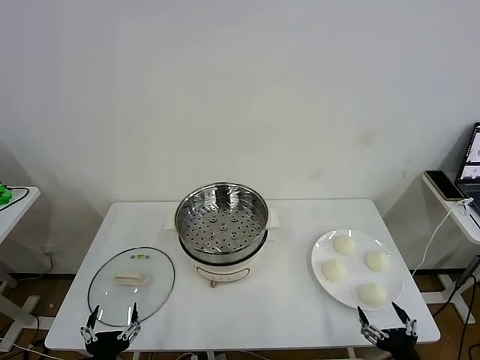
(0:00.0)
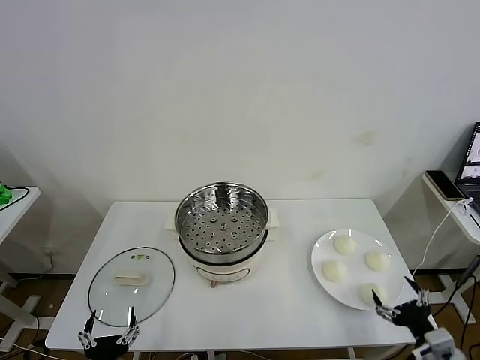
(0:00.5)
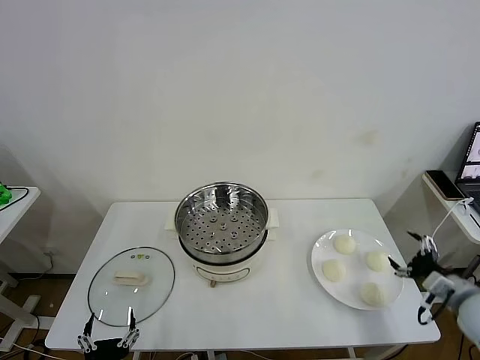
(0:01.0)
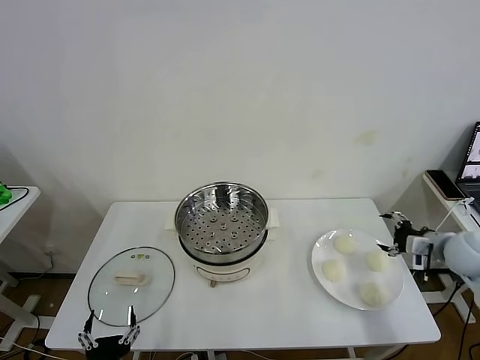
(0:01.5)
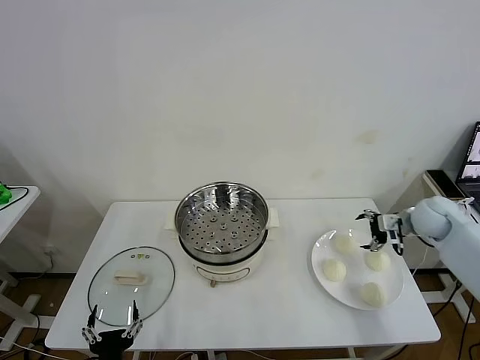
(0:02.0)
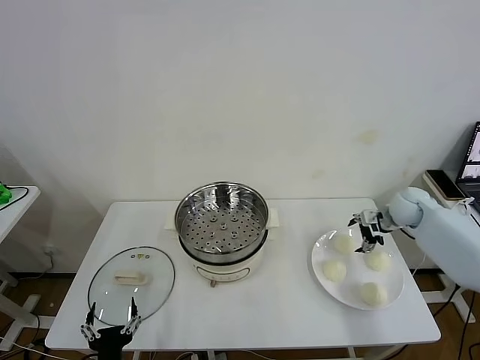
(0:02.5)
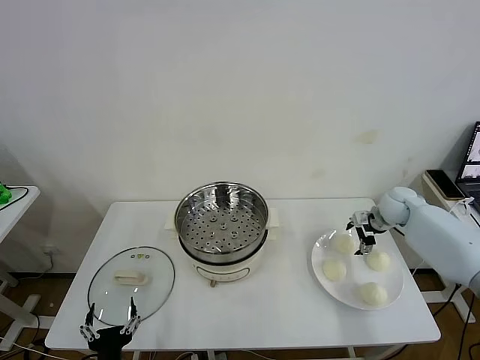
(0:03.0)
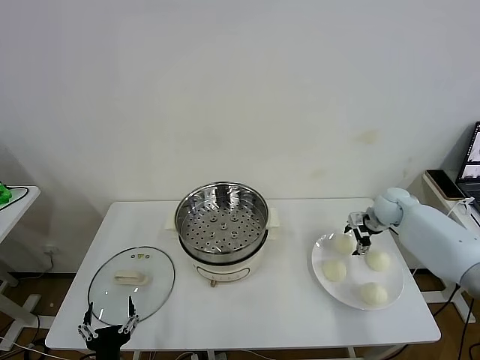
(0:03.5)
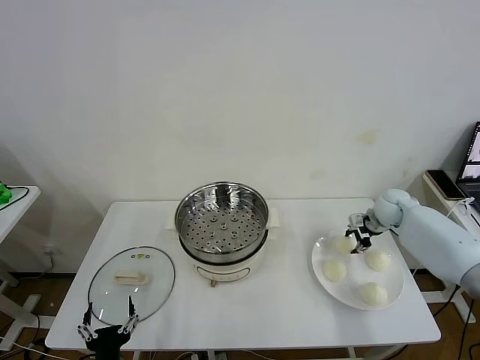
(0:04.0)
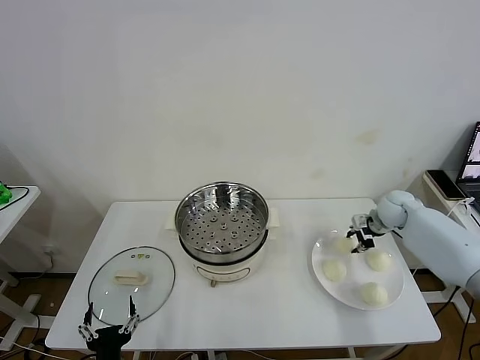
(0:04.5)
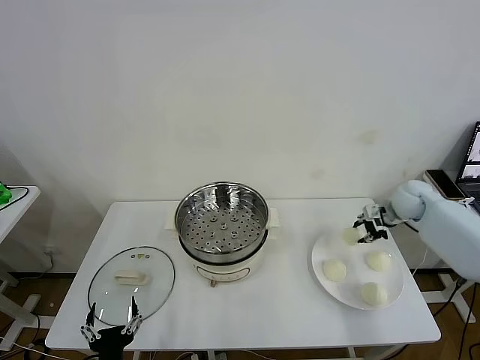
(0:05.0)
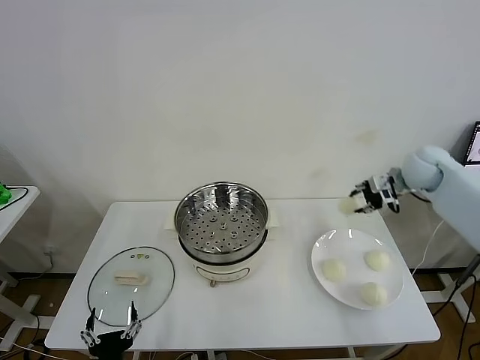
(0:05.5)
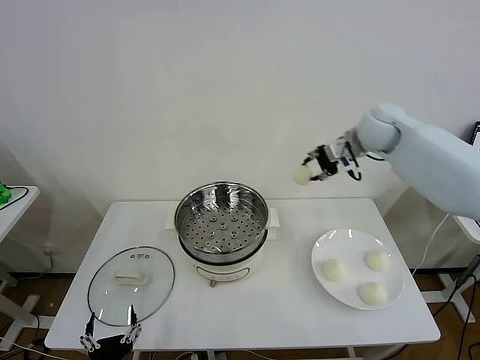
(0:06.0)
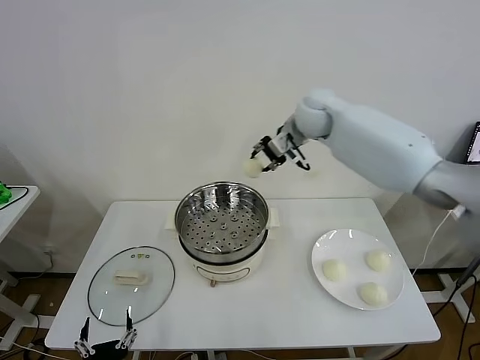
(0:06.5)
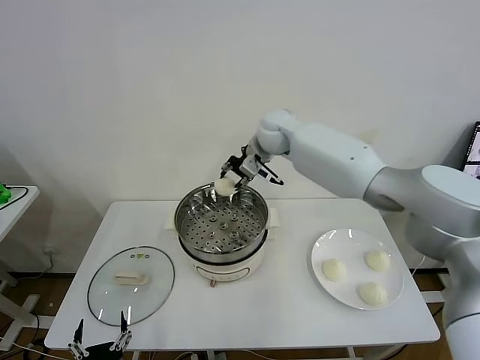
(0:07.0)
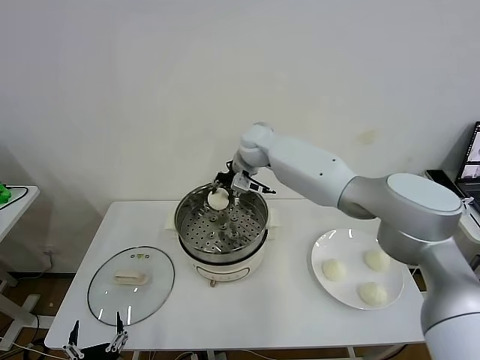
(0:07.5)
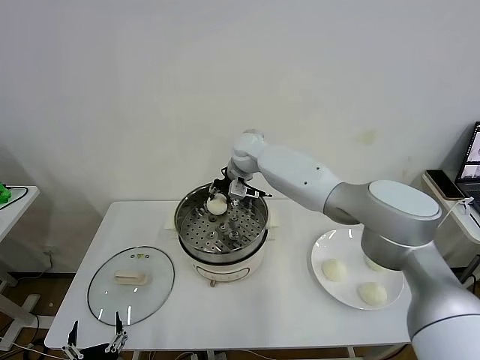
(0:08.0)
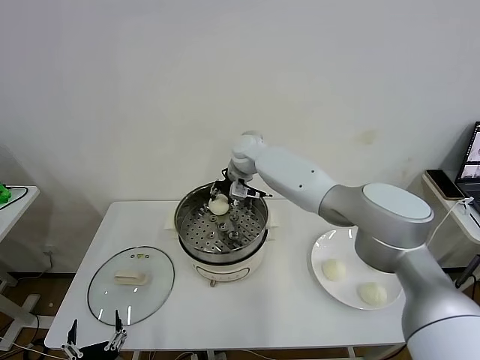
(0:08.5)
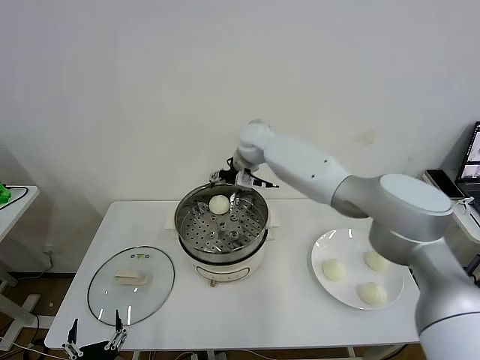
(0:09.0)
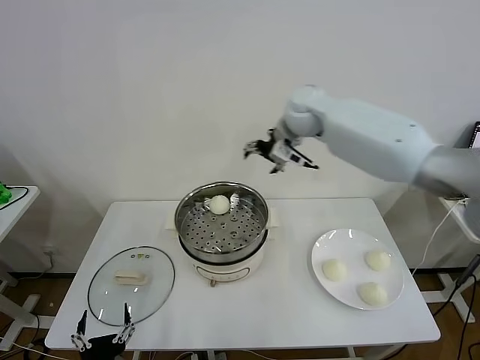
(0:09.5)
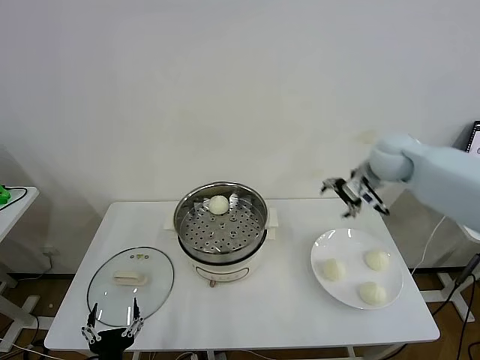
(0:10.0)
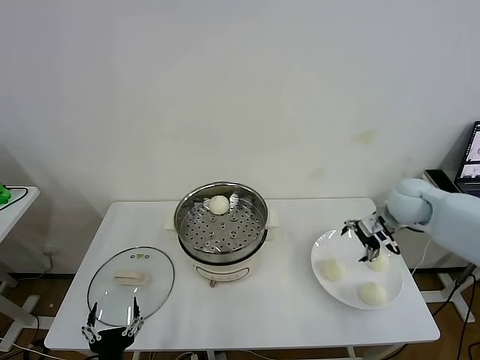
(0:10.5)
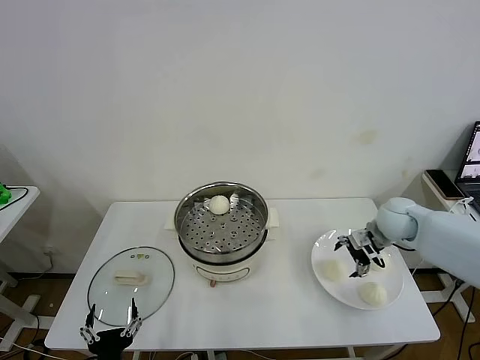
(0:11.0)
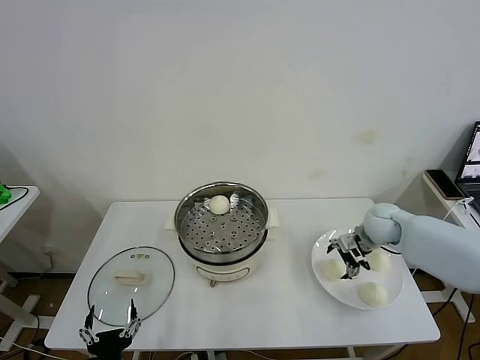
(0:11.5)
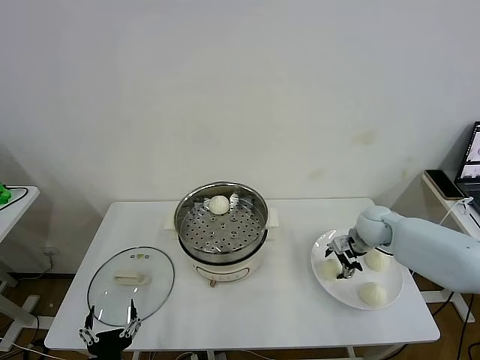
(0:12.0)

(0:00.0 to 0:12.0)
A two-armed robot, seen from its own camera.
Task of the whole recording: take steamed baozi put them in steamer then cover it.
Step, 0:00.0 - 0:04.0: Grasp the baozi with right gripper.
Step, 0:05.0 - 0:08.5: Place the baozi on the steamer with right gripper.
0:02.0 - 0:04.0: The right gripper goes roughly 5 cm forward, and closes.
0:04.0 - 0:06.0: The right gripper moves upward and to the left, some 30 cm.
0:06.0 - 0:08.0: The right gripper is displaced to the left and downward by some 25 cm.
0:08.0 - 0:10.0: The right gripper is displaced to the right by roughly 35 cm, and opens.
0:10.0 - 0:12.0: The right gripper shifts roughly 15 cm downward, and closes its fingers.

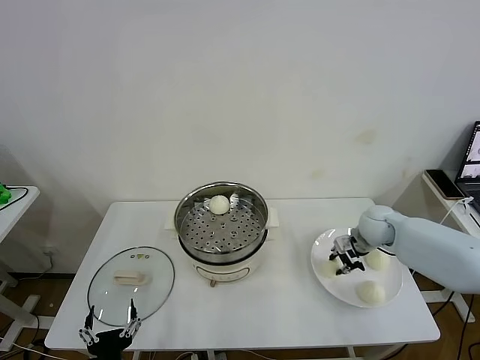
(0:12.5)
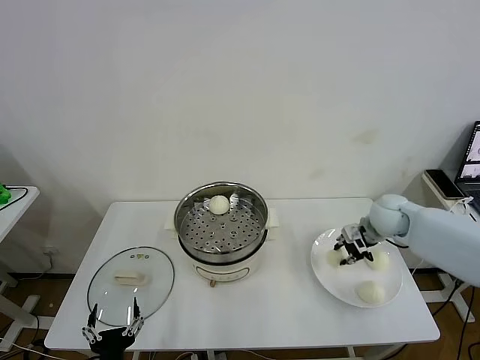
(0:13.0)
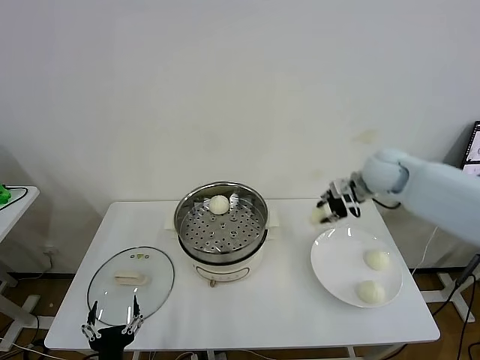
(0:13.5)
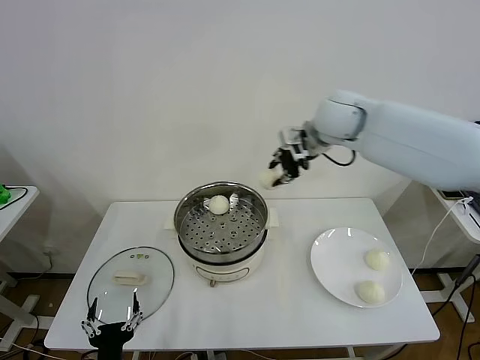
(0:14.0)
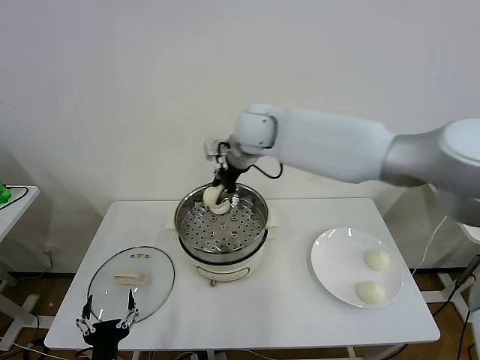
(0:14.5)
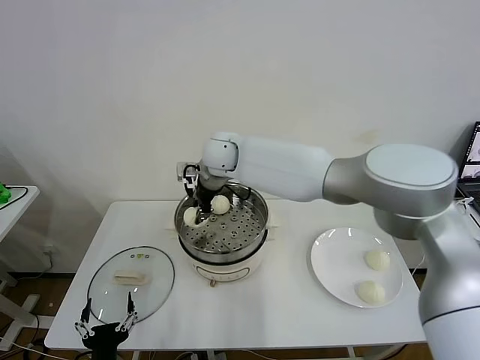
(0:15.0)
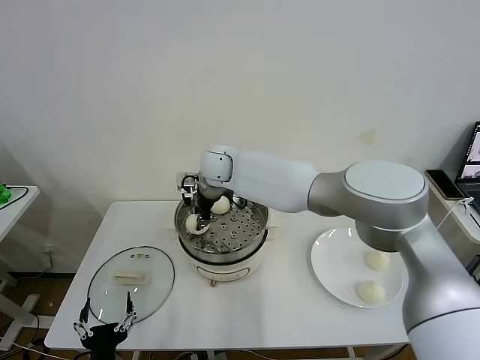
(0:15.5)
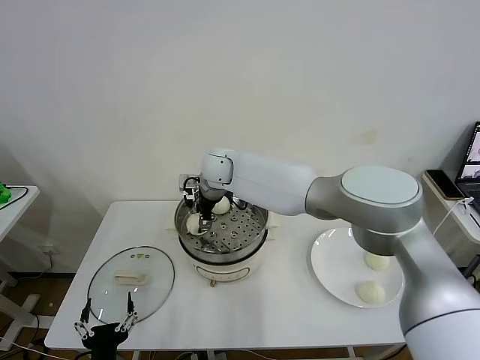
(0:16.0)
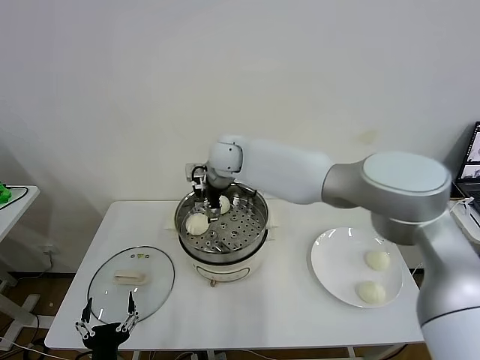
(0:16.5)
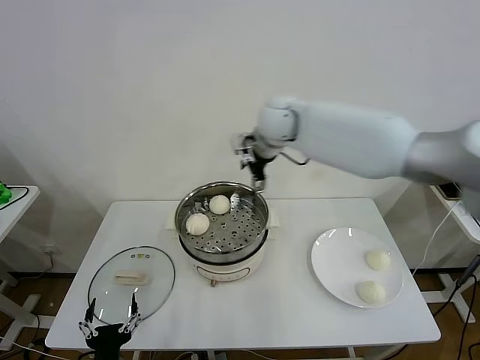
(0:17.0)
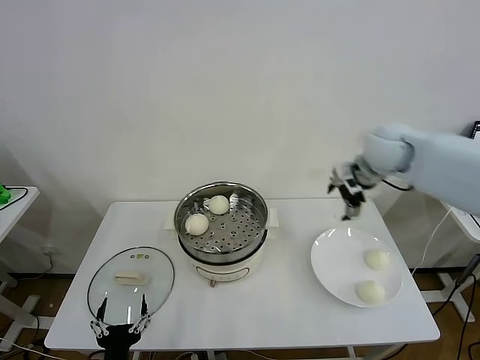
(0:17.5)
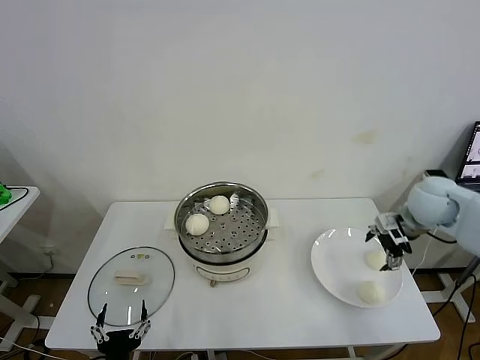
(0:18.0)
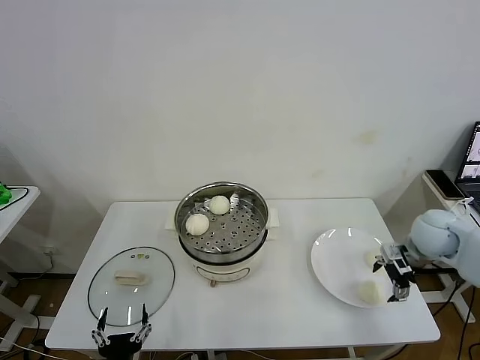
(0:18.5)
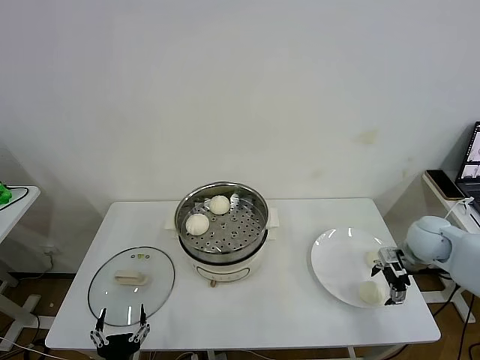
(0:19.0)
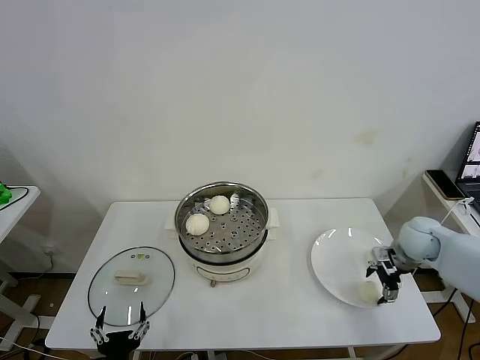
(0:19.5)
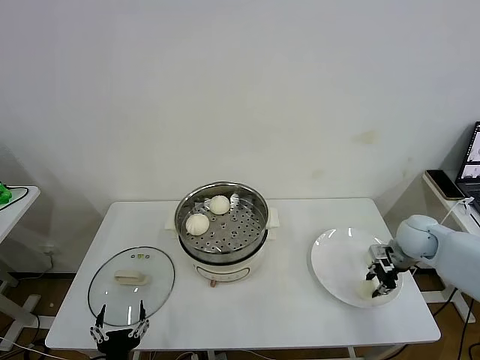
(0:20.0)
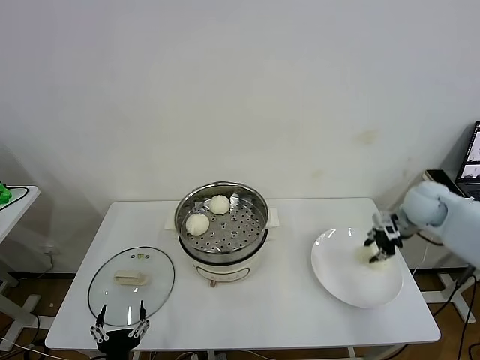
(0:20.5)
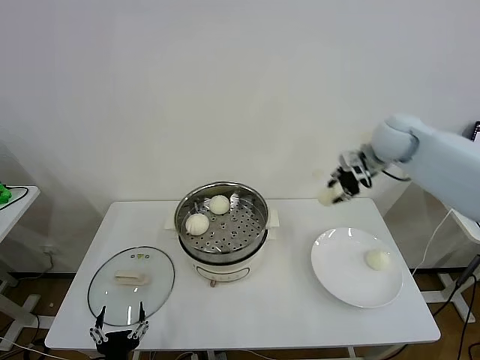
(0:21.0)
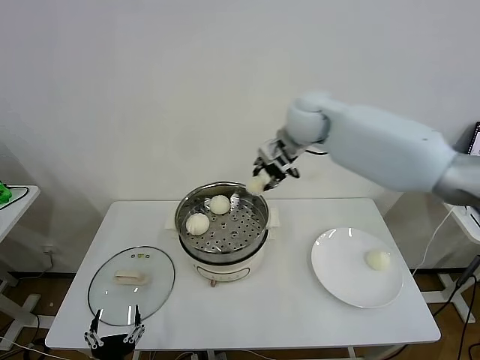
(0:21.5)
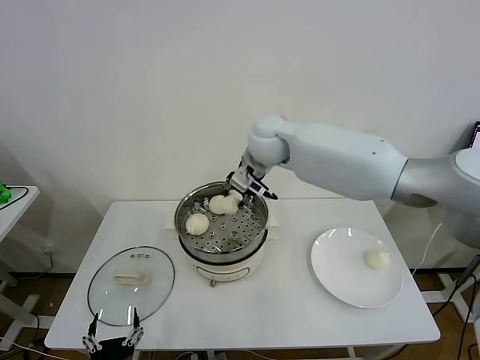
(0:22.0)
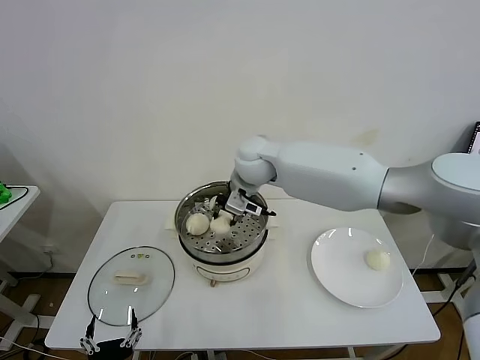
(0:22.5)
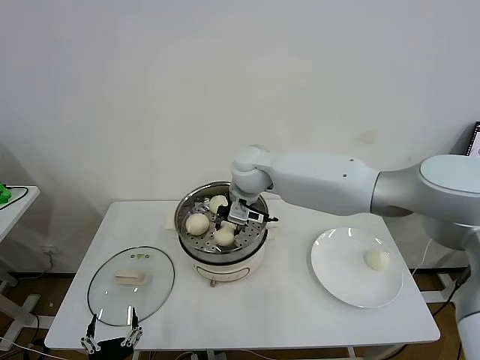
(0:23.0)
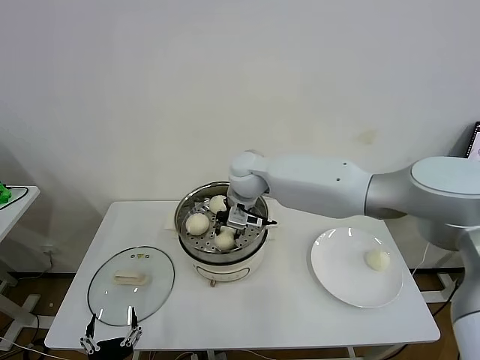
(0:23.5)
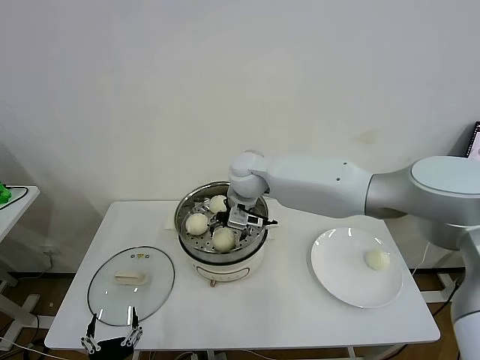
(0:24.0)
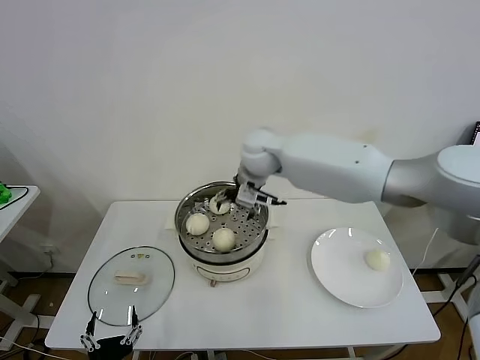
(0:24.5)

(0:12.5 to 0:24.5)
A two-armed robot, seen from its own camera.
Task of the whole recording: take steamed baozi put them in steamer then cover it.
Step, 0:13.0 - 0:16.0: Place the baozi on the steamer with right gripper.
Step, 0:16.5 - 0:20.0: Grasp the baozi with right gripper.
Step, 0:20.5 - 0:24.0: Place the baozi on the steamer with right gripper.
0:12.5 - 0:14.5: The right gripper shifts roughly 40 cm to the left and upward.
0:14.5 - 0:16.5: The right gripper opens its fingers.
0:16.5 - 0:18.5: The right gripper heads to the right, covering roughly 40 cm.
0:18.5 - 0:20.5: The right gripper moves forward and upward, approximately 10 cm, and closes up.
0:20.5 - 0:22.5: The right gripper shifts some 40 cm to the left.
0:22.5 - 0:24.5: The right gripper opens.

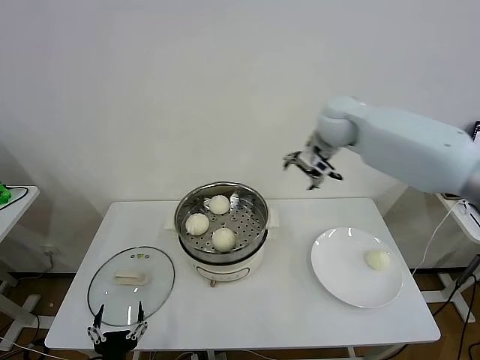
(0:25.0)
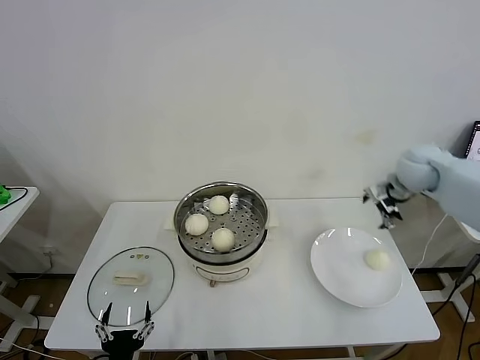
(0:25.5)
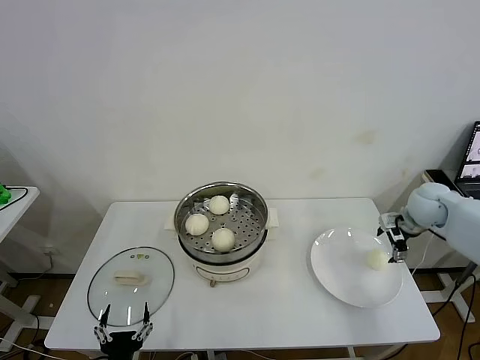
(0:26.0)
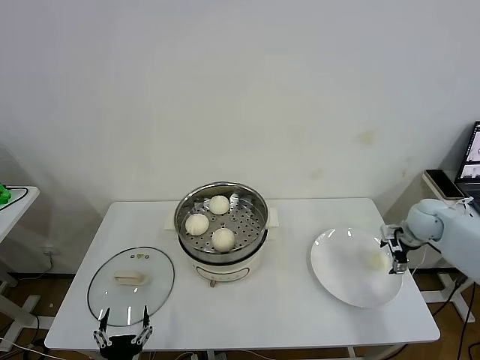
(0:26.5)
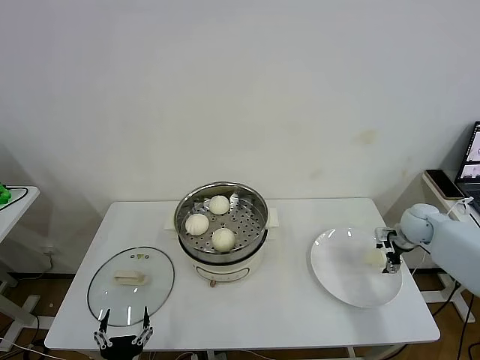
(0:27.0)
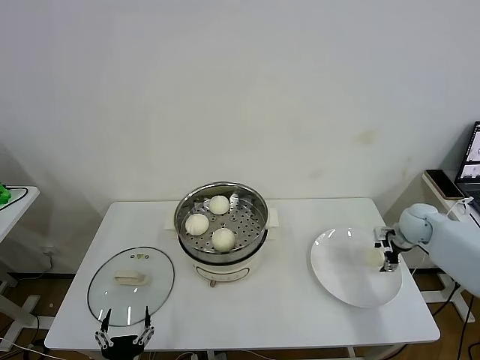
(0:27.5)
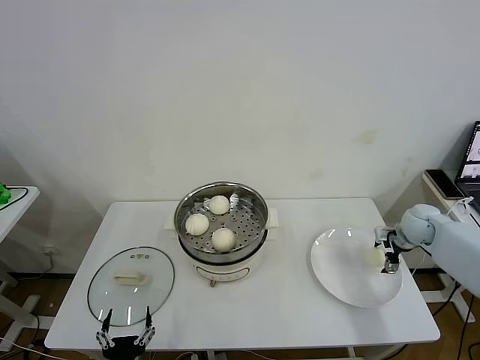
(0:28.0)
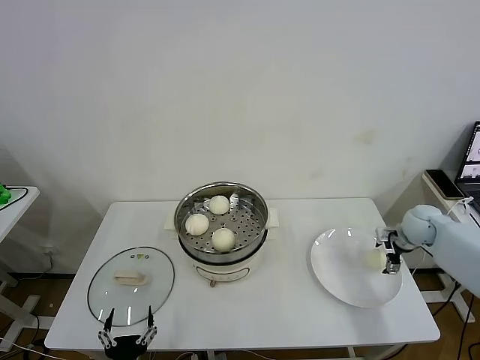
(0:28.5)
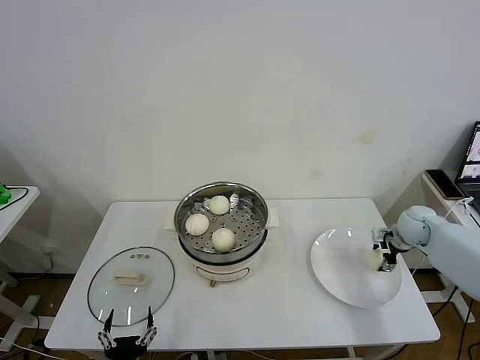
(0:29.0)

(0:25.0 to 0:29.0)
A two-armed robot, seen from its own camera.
Task of the whole recording: take steamed baozi put them in steamer then cover it.
0:25.0 - 0:27.0: The right gripper is displaced downward and to the right by some 30 cm.
0:27.0 - 0:29.0: Neither gripper changes place.
